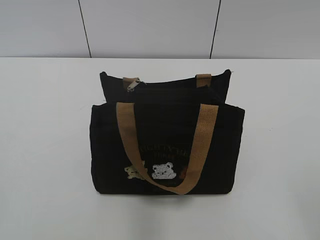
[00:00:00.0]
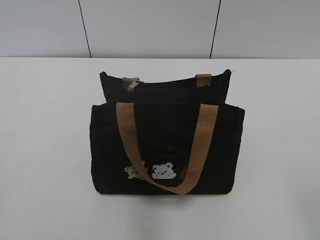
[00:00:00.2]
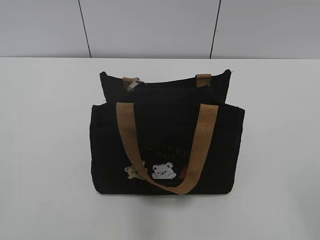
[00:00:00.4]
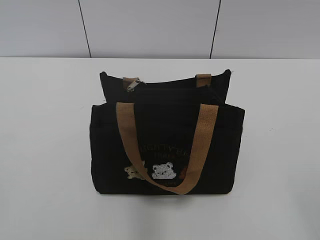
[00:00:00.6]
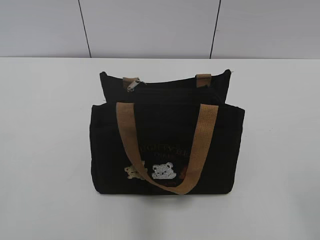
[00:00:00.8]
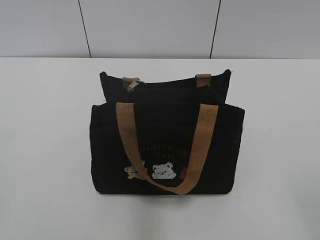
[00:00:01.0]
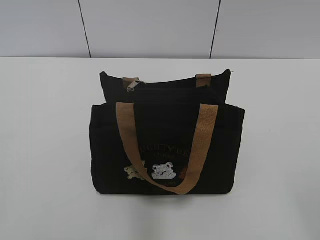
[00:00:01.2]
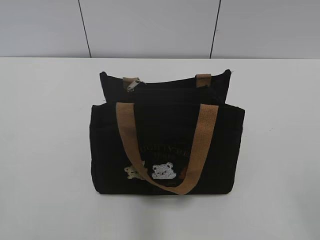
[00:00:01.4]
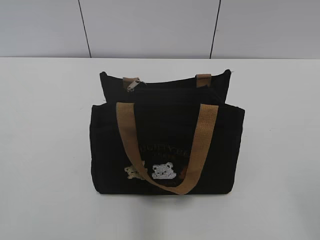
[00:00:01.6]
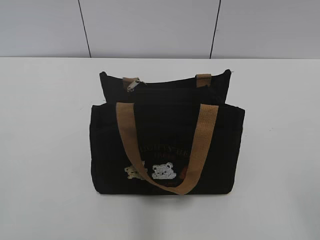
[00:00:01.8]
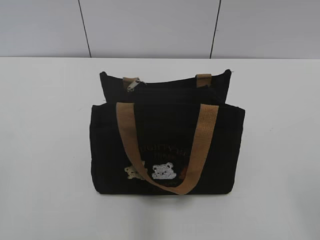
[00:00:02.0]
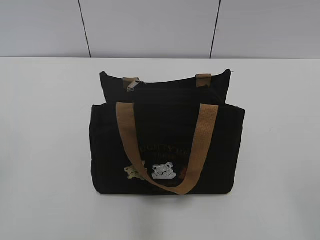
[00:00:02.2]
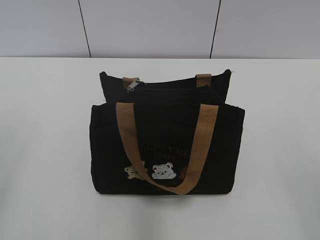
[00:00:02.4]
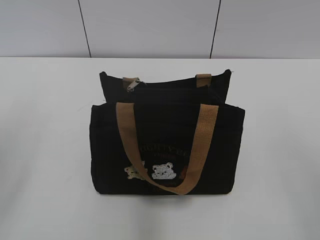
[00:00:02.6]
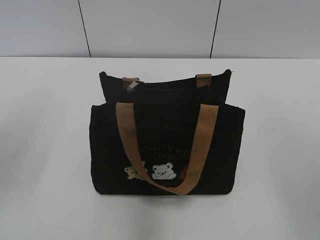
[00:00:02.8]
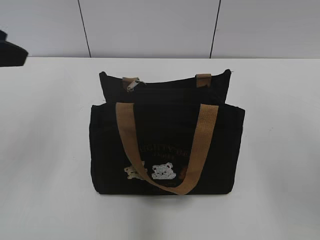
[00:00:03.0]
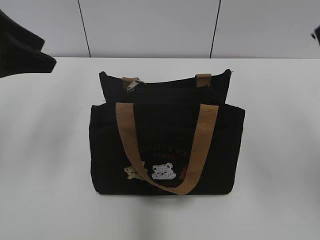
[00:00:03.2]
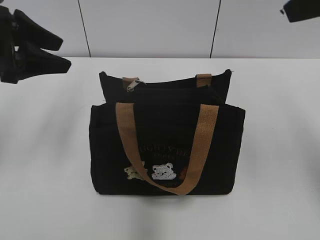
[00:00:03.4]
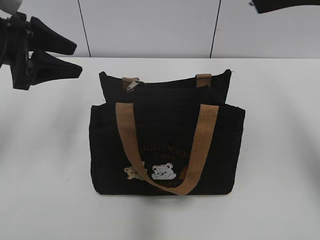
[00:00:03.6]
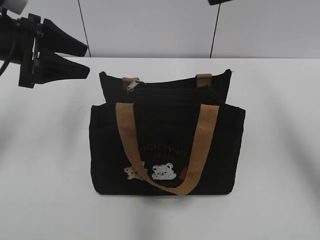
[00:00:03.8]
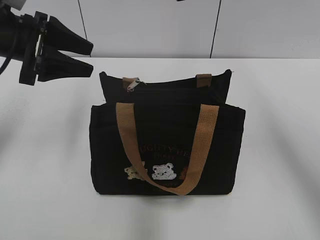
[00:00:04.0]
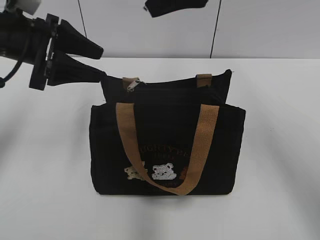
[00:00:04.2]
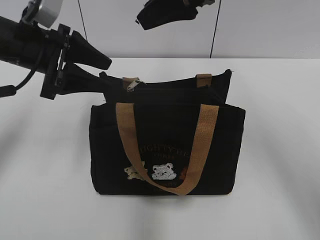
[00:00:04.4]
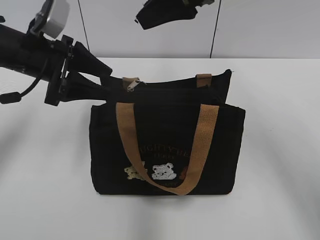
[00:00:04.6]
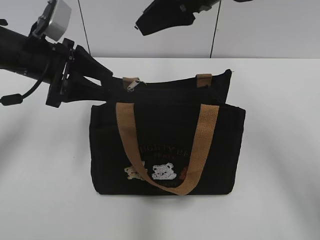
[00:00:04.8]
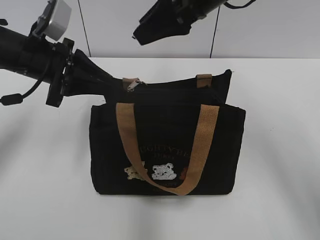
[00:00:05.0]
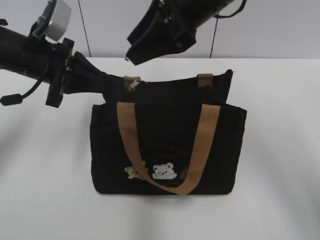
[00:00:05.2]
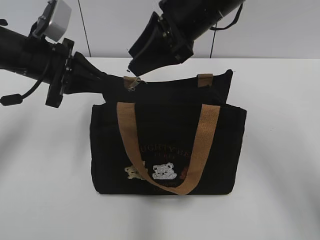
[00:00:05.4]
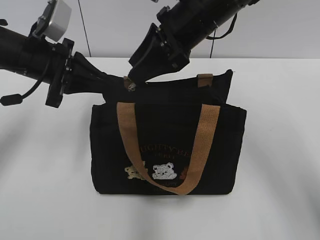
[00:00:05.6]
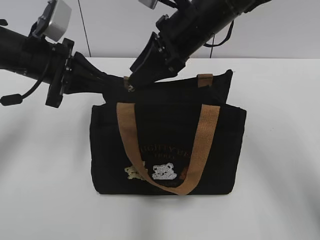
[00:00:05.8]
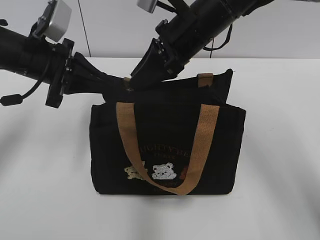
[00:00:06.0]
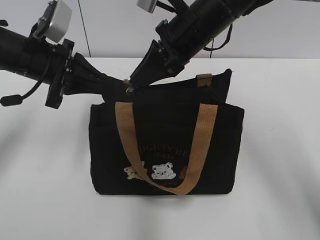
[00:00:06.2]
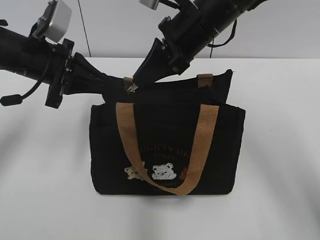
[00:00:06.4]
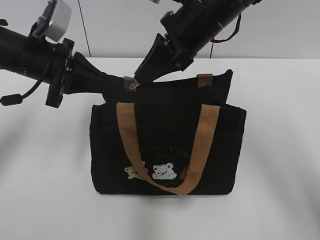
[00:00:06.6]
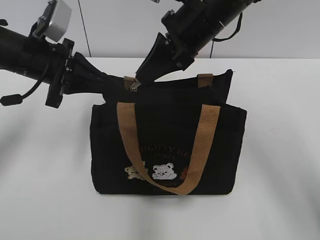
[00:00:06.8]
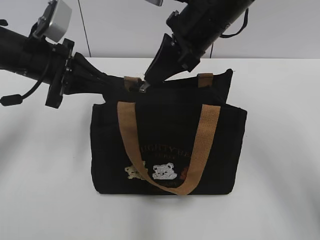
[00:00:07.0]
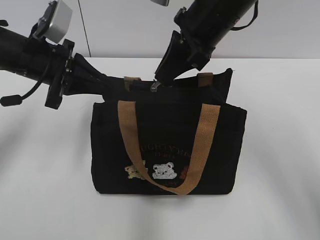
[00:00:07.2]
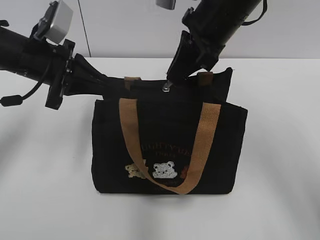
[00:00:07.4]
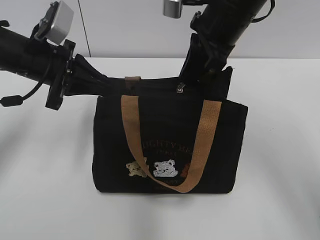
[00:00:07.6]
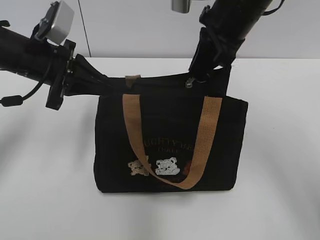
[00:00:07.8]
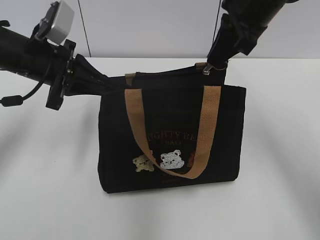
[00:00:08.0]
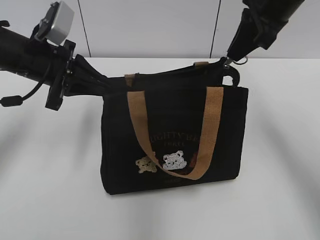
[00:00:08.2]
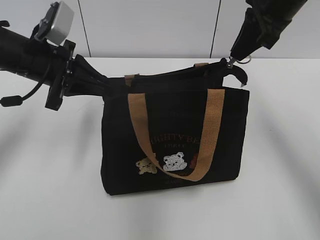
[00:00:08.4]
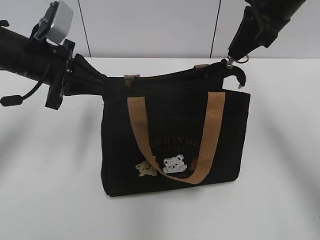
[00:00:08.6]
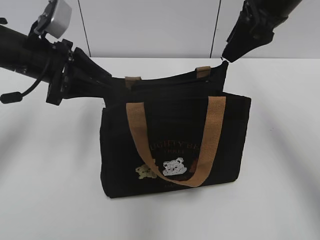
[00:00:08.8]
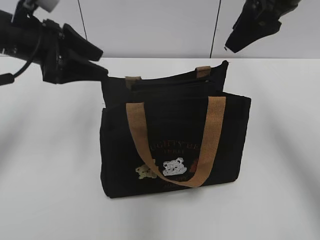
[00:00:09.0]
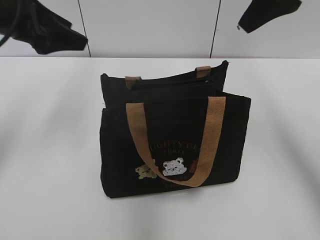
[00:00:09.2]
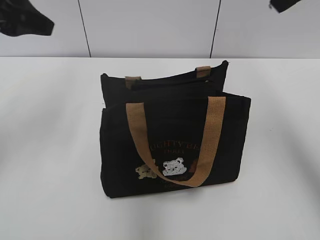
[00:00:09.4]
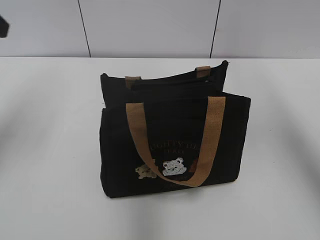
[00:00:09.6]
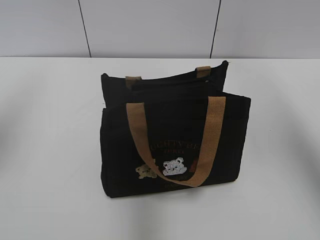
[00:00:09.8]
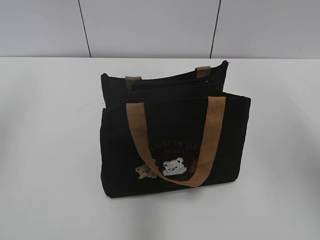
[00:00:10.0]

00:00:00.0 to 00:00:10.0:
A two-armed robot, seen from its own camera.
Step, 00:00:00.0 to 00:00:08.6: Pull open the zipper with your right hand.
00:00:01.4 to 00:00:02.8: The left gripper heads forward, covering approximately 20 cm, and opens its fingers.
00:00:02.8 to 00:00:04.2: The left gripper heads forward, to the right and downward, covering roughly 20 cm; the right gripper is displaced forward and to the left by some 30 cm.
00:00:04.2 to 00:00:05.8: The left gripper closes up. Meanwhile the right gripper goes approximately 10 cm downward.
00:00:05.8 to 00:00:07.2: The right gripper closes its fingers.
00:00:07.2 to 00:00:08.6: The right gripper heads to the right, covering some 10 cm.
00:00:08.6 to 00:00:10.0: The right gripper travels backward, upward and to the right by about 20 cm, and opens its fingers. The left gripper shifts approximately 20 cm upward, backward and to the left, and opens up.

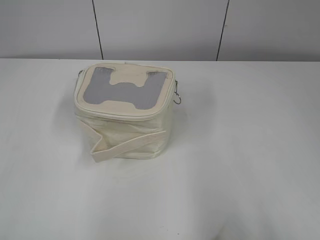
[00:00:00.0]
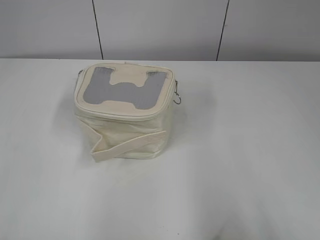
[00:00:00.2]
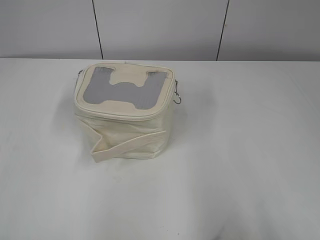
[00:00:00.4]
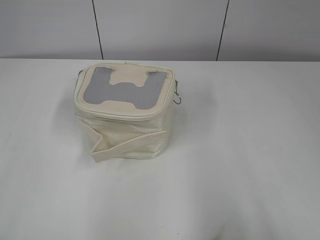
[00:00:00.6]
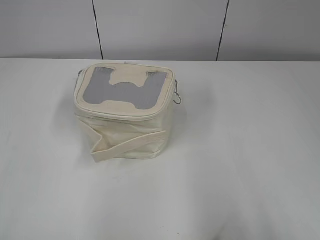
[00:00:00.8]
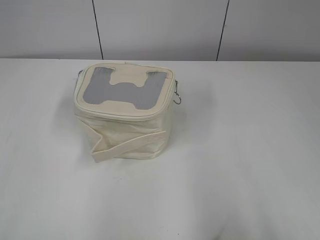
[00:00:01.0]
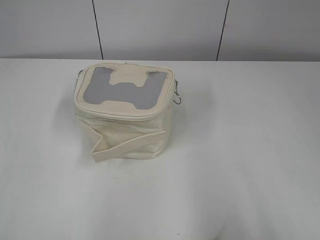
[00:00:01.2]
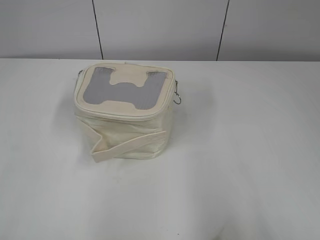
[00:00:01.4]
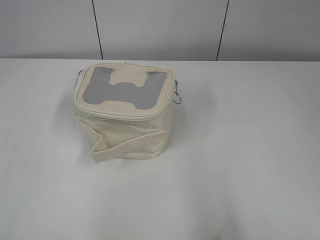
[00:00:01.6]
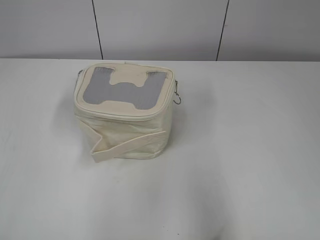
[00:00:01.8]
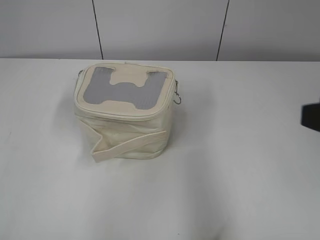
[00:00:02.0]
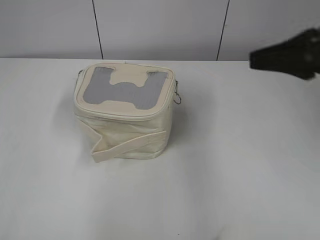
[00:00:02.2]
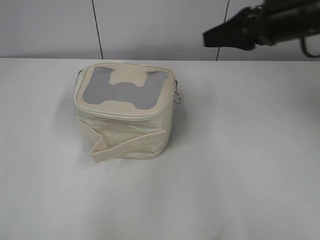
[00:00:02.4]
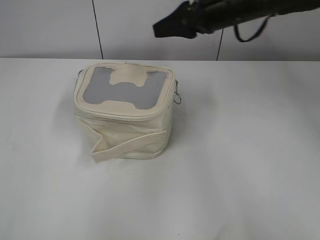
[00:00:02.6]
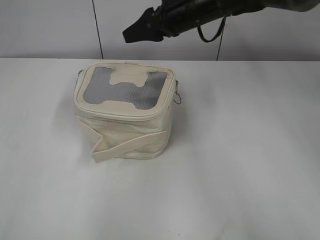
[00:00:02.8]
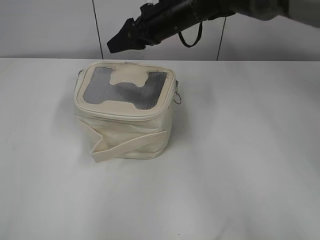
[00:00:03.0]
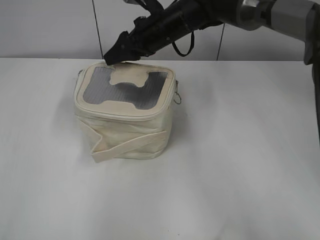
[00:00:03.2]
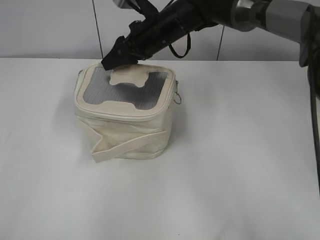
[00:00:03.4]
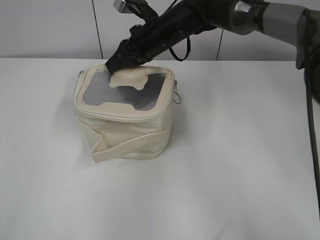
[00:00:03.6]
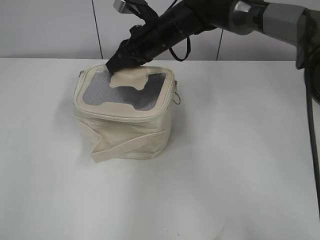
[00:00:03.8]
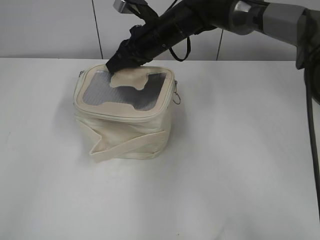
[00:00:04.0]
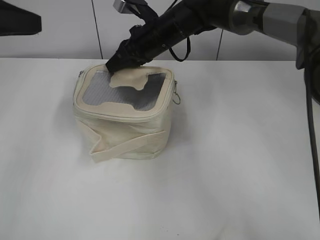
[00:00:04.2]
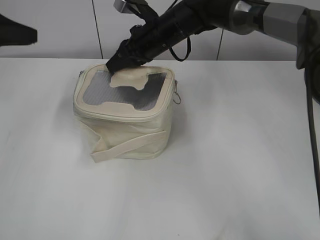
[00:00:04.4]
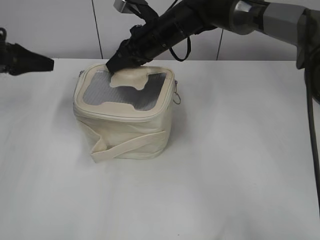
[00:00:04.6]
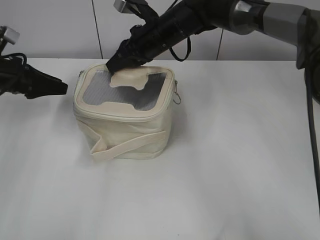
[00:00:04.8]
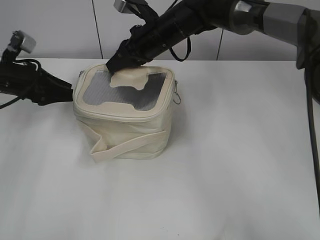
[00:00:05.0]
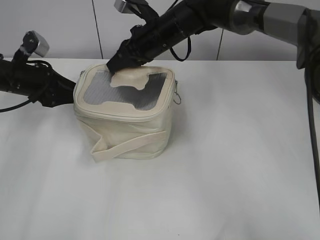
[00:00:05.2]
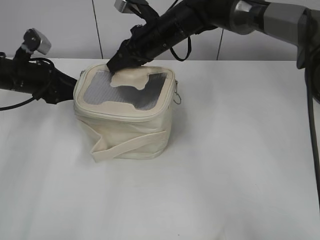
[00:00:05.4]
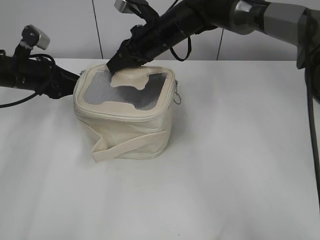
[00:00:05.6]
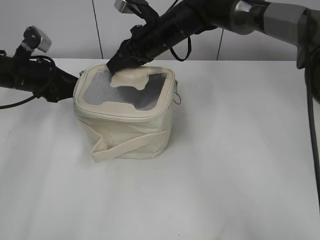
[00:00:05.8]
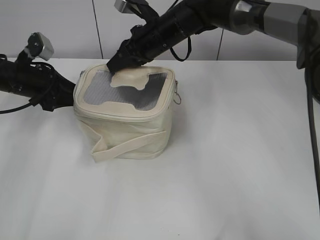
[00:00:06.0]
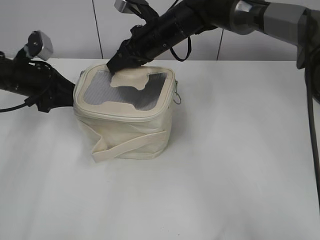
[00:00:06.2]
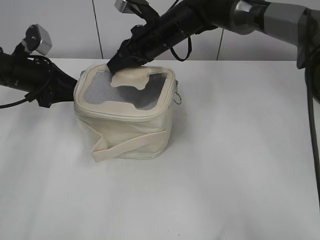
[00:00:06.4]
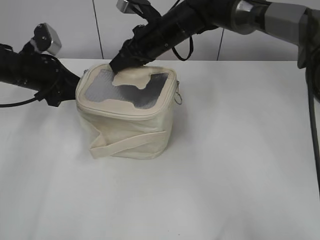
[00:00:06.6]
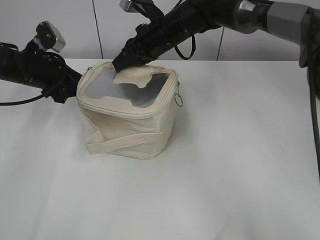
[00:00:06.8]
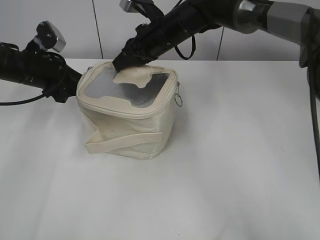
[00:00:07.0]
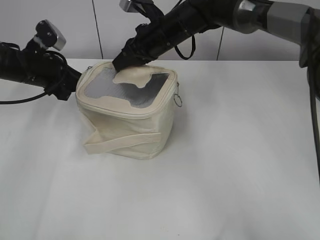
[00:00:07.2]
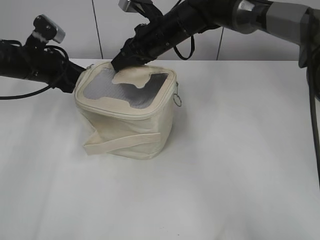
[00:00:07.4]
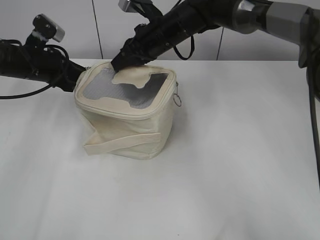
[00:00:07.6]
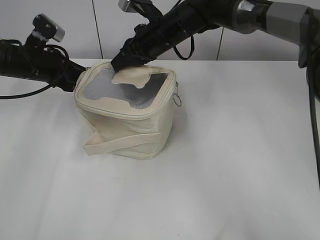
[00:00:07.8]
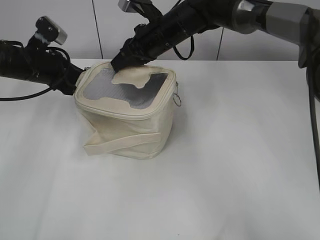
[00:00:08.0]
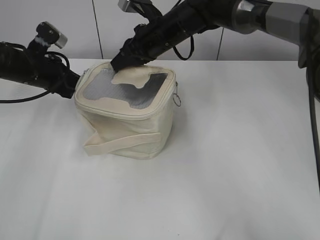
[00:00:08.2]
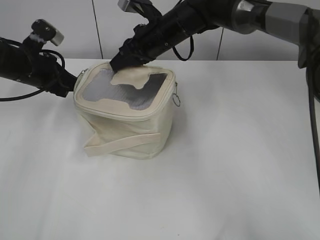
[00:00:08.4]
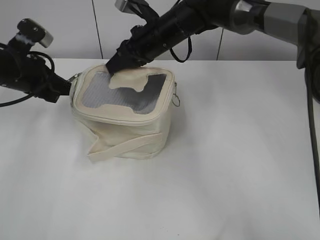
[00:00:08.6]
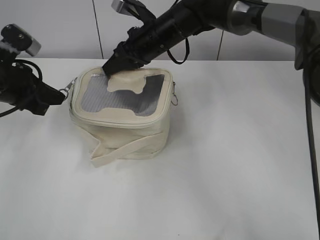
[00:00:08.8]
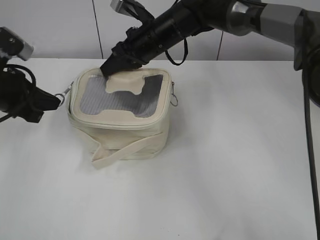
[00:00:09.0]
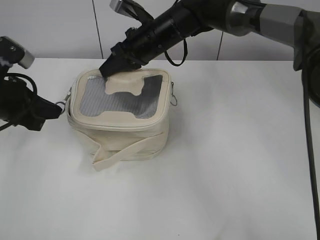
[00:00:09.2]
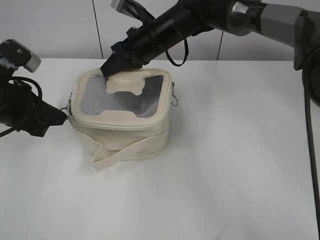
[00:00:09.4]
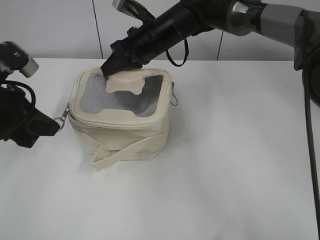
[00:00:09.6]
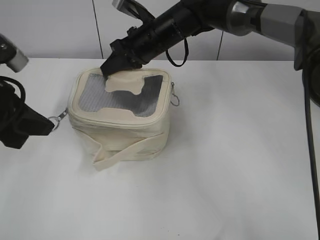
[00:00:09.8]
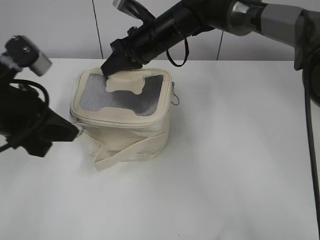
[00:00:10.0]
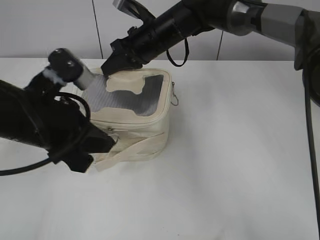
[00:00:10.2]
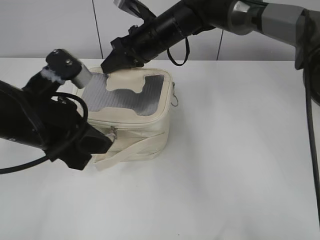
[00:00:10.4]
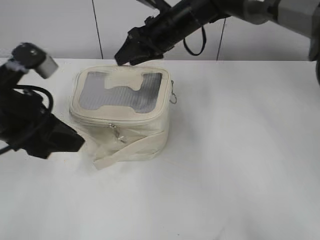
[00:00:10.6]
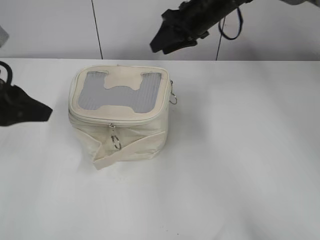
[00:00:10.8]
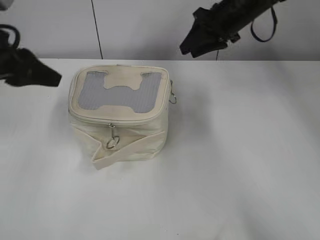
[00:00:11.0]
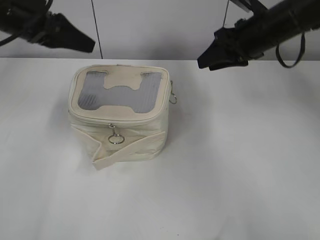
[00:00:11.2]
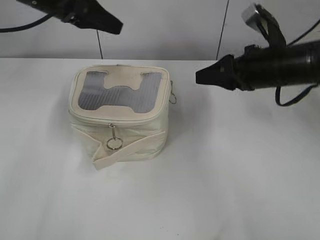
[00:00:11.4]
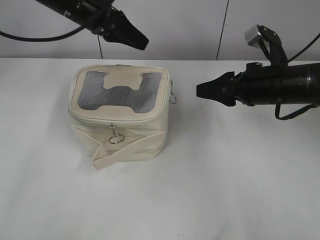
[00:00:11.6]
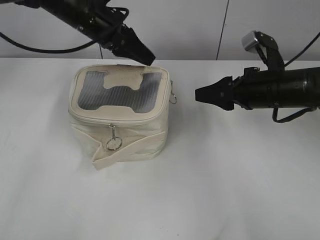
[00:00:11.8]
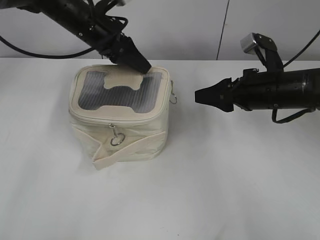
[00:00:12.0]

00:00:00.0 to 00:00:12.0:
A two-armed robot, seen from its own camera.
Step, 00:00:00.0 to 00:00:10.4: Zip up the bag with your left hand.
00:00:01.6 to 00:00:03.0: The right gripper moves forward and to the left, about 50 cm.
00:00:03.0 to 00:00:04.4: The left gripper goes some 35 cm forward. Meanwhile the right gripper closes up.
00:00:04.4 to 00:00:06.0: The left gripper travels downward and forward by some 15 cm, and opens up.
00:00:06.0 to 00:00:07.6: The left gripper closes its fingers.
00:00:07.6 to 00:00:09.0: The left gripper shifts approximately 10 cm backward, and closes.
00:00:09.0 to 00:00:10.4: The left gripper travels to the right and backward by some 15 cm.
00:00:10.4 to 00:00:12.0: The right gripper heads to the right and backward, covering approximately 25 cm, and opens its fingers; the left gripper heads forward, covering roughly 20 cm, and opens up.
